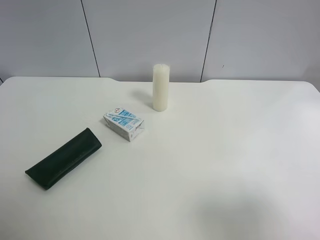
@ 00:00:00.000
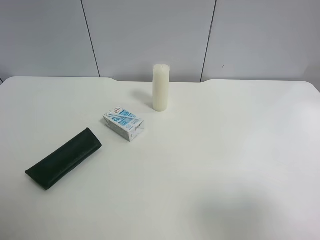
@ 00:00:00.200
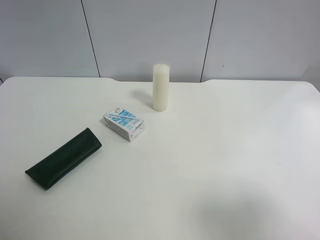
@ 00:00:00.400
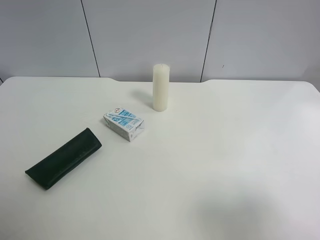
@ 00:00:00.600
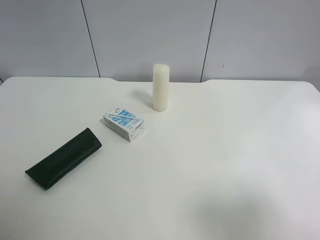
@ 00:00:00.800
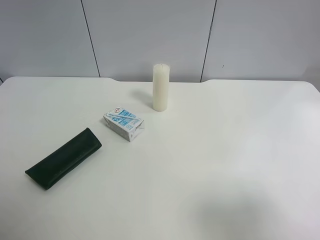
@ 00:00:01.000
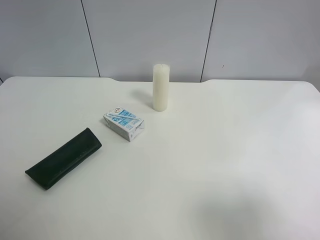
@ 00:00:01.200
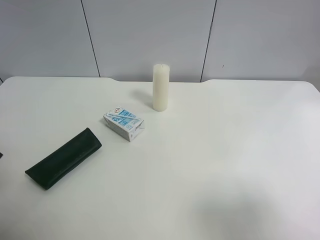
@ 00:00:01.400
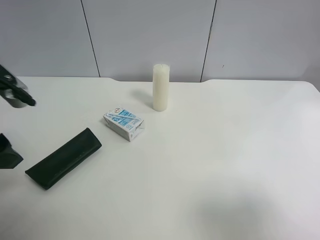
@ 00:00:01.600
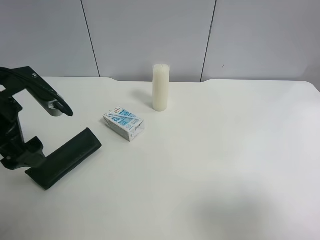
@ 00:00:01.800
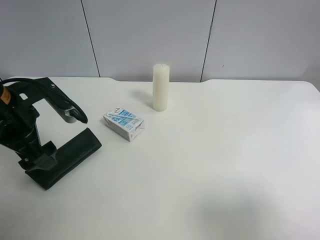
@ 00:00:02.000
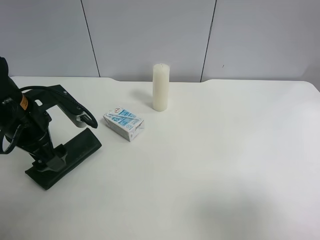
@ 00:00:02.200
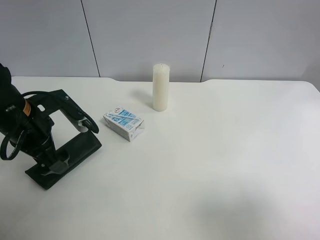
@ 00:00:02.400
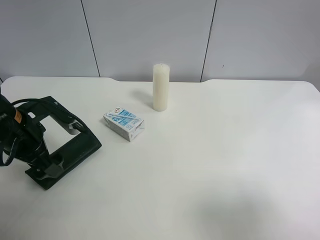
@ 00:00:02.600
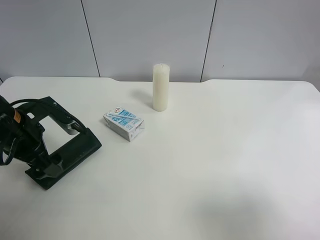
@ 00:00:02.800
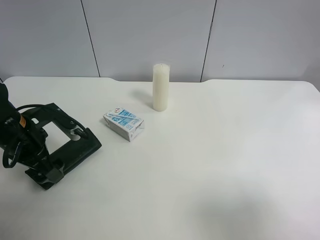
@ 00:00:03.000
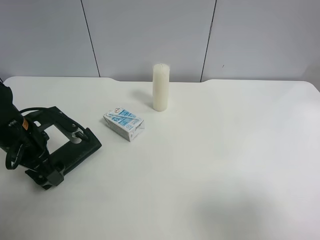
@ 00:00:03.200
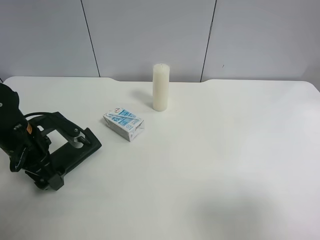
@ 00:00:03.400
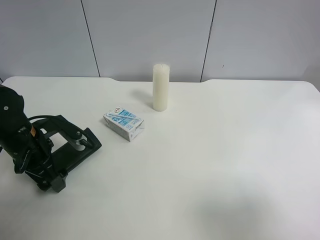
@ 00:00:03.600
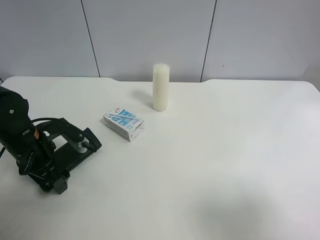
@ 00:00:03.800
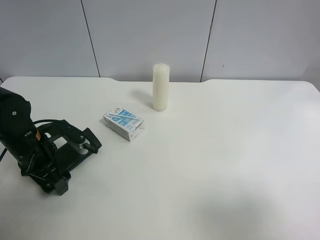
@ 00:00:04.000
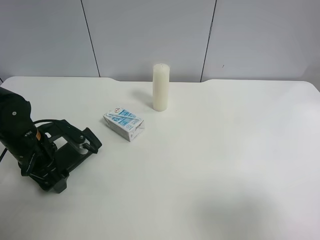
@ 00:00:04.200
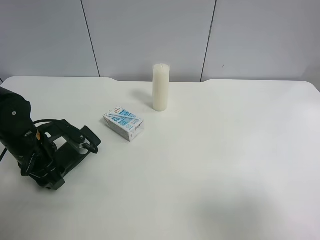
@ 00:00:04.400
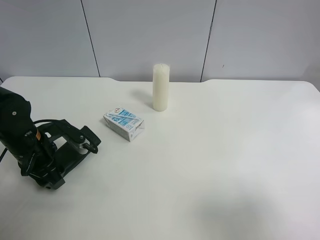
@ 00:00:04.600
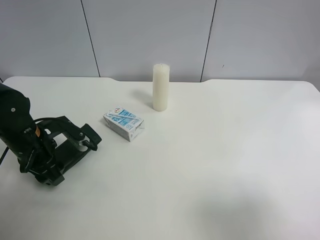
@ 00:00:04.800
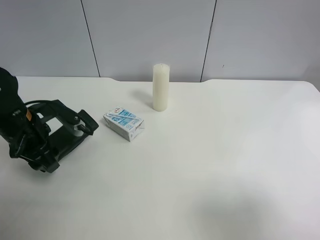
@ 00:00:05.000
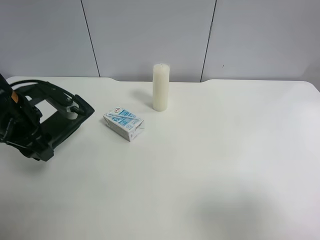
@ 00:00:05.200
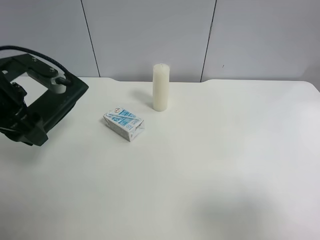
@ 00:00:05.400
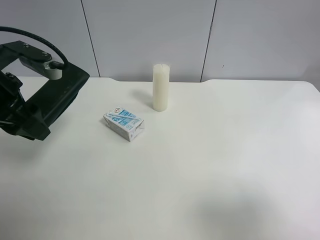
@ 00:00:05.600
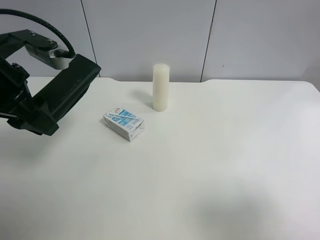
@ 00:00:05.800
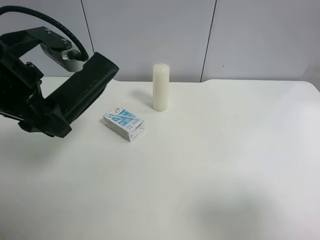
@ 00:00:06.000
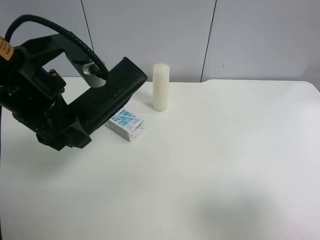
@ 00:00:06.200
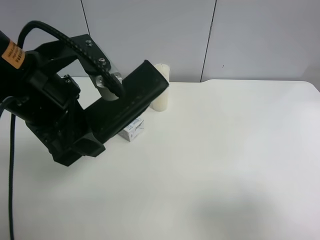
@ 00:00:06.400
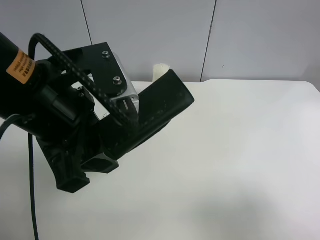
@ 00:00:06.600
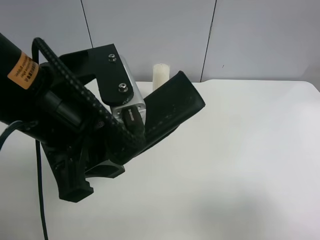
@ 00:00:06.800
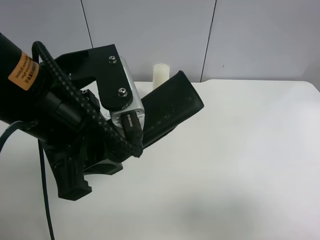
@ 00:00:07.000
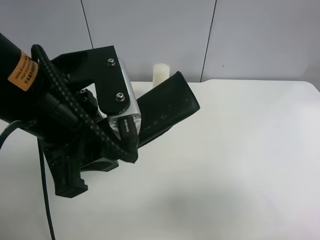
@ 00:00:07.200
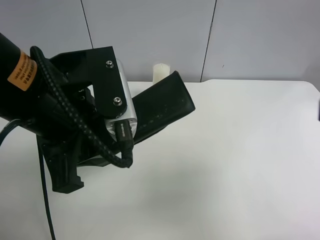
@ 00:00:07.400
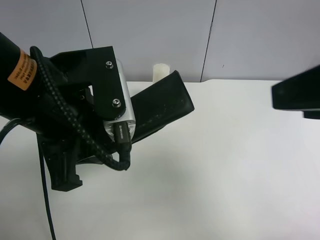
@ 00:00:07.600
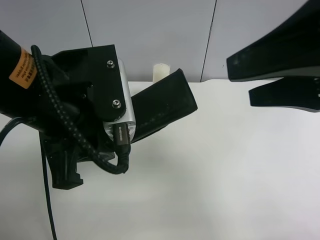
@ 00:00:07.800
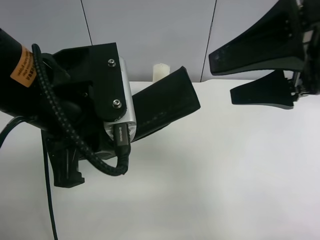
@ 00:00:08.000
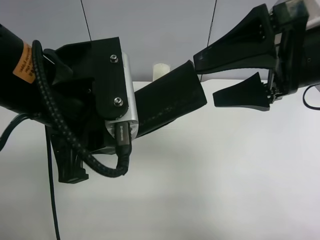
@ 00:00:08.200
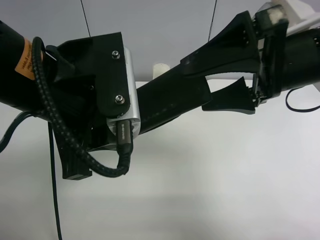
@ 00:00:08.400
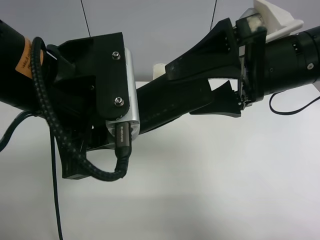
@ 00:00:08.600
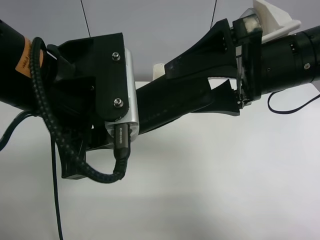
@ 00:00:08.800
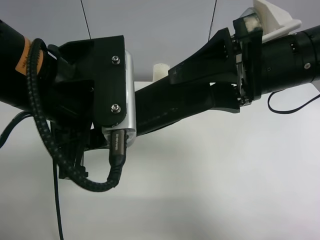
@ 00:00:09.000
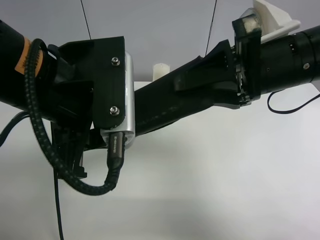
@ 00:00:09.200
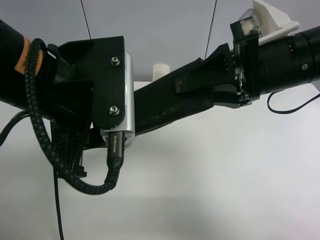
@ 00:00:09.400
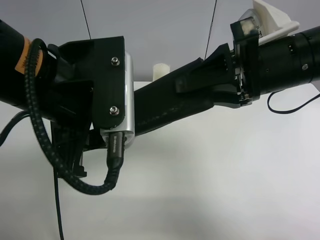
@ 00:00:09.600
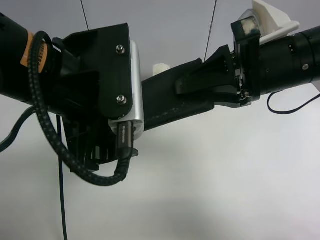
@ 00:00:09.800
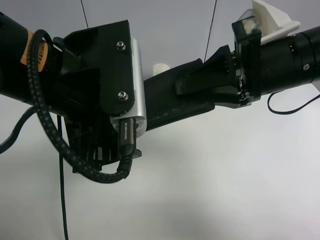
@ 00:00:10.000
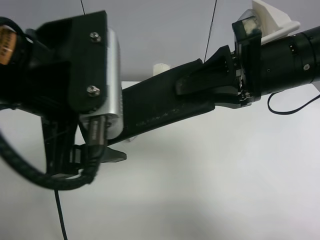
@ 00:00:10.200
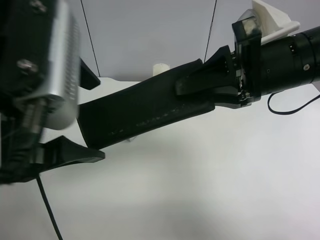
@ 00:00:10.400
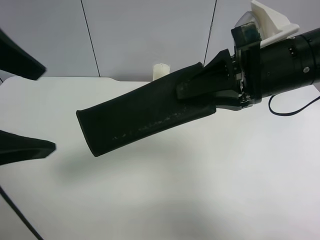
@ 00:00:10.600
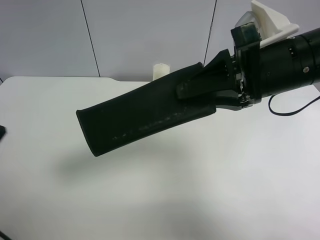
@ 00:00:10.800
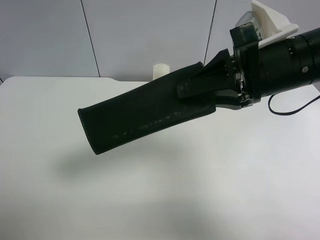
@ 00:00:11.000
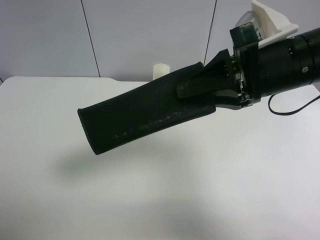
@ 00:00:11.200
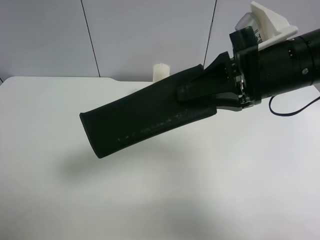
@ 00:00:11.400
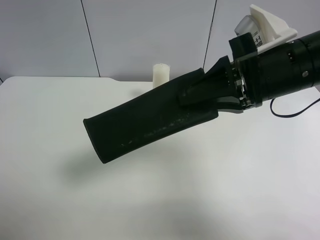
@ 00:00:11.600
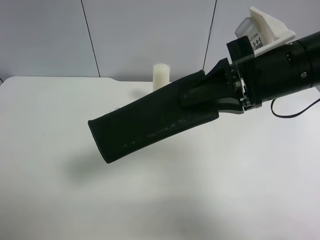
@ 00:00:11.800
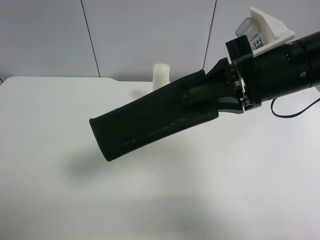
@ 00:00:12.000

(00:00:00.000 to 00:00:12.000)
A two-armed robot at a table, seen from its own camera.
Task of the whole recording: use the left gripper to pick up the item and transfer it from the left gripper to the right gripper.
00:00:00.000 - 00:00:01.600: The left gripper shifts about 15 cm forward.
00:00:01.600 - 00:00:03.000: The left gripper shifts approximately 15 cm downward and forward.
00:00:03.000 - 00:00:04.400: The left gripper closes up.
00:00:04.400 - 00:00:06.000: The left gripper moves upward, some 20 cm.
00:00:06.000 - 00:00:07.600: The left gripper is displaced to the right and backward by approximately 10 cm. Meanwhile the right gripper is displaced forward, upward and to the left by approximately 15 cm.
00:00:07.600 - 00:00:09.000: The right gripper heads forward, to the left and downward, covering some 15 cm, and closes.
00:00:09.000 - 00:00:10.400: The right gripper closes up. Meanwhile the left gripper shifts by approximately 5 cm, and opens its fingers.
00:00:10.400 - 00:00:12.000: The left gripper is displaced to the left and backward by approximately 20 cm.

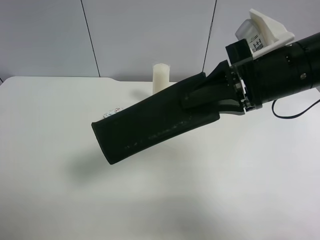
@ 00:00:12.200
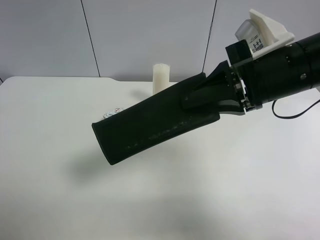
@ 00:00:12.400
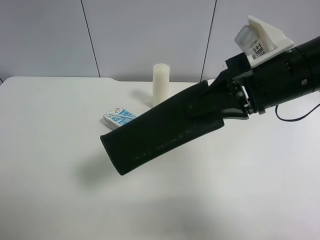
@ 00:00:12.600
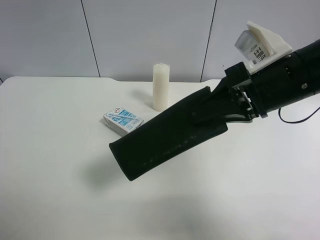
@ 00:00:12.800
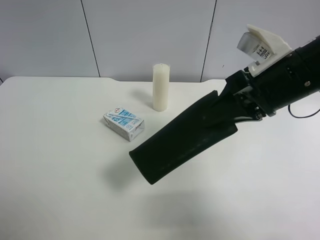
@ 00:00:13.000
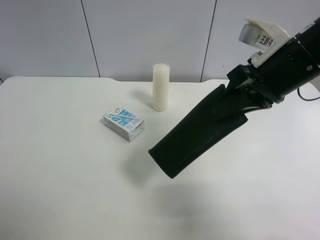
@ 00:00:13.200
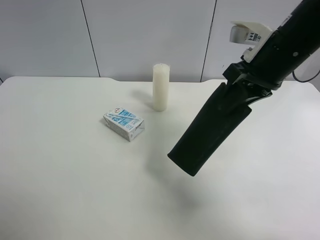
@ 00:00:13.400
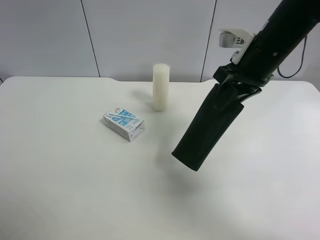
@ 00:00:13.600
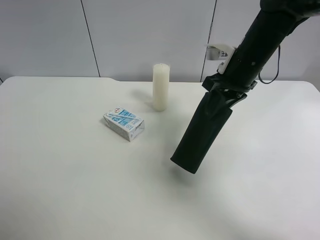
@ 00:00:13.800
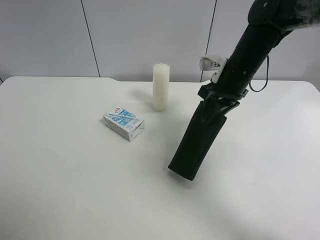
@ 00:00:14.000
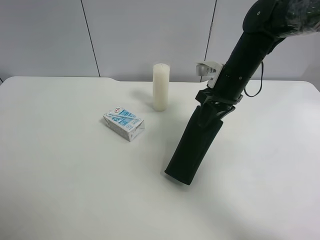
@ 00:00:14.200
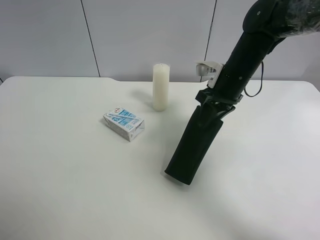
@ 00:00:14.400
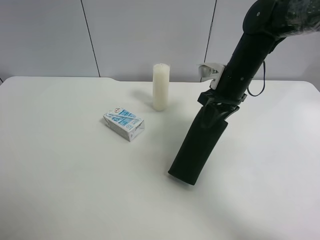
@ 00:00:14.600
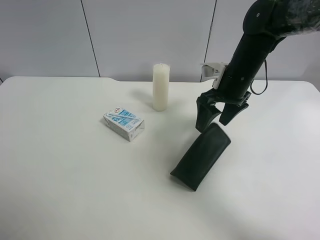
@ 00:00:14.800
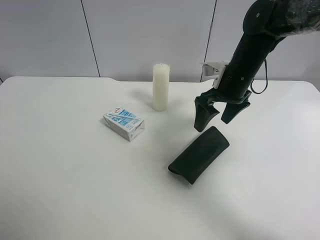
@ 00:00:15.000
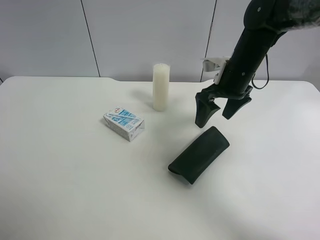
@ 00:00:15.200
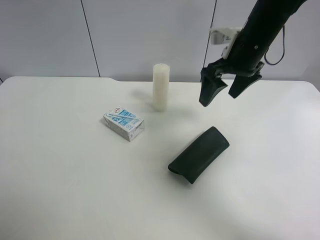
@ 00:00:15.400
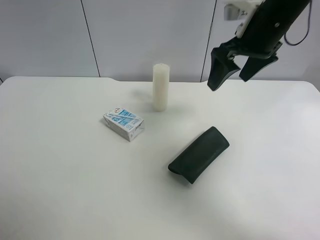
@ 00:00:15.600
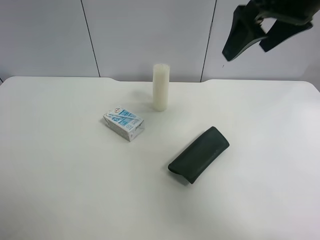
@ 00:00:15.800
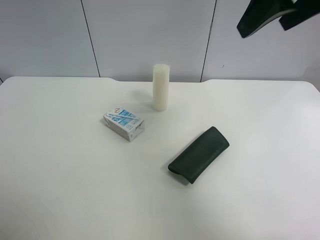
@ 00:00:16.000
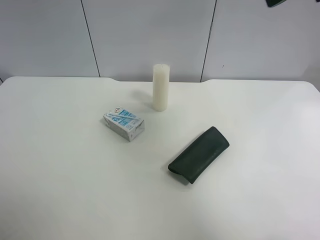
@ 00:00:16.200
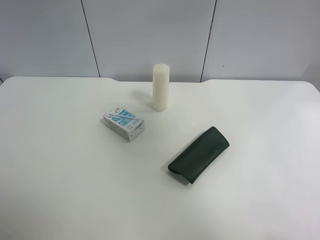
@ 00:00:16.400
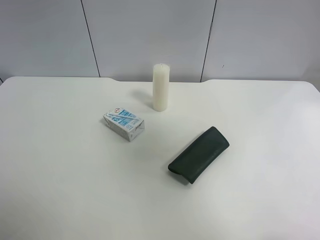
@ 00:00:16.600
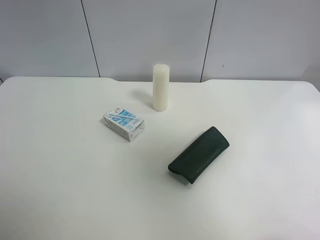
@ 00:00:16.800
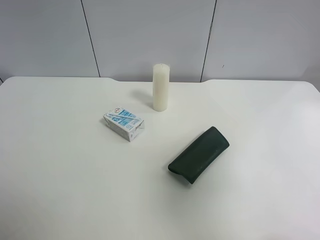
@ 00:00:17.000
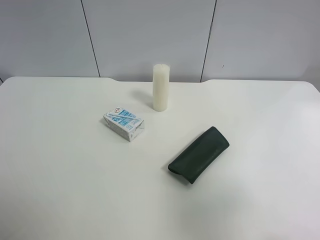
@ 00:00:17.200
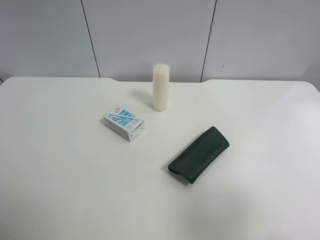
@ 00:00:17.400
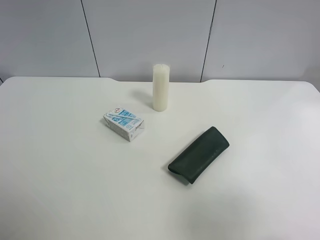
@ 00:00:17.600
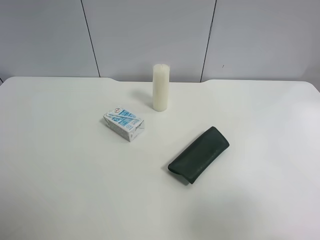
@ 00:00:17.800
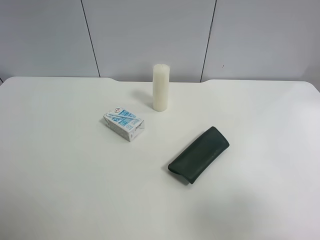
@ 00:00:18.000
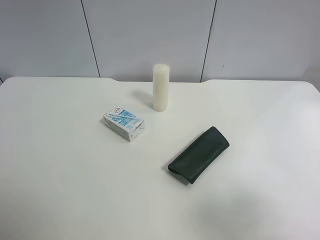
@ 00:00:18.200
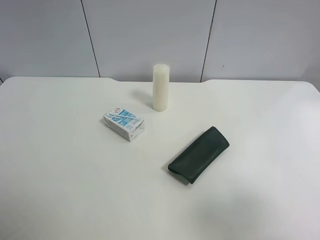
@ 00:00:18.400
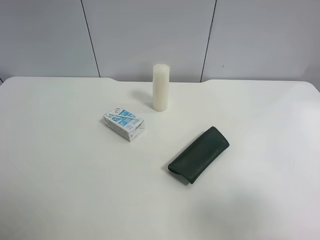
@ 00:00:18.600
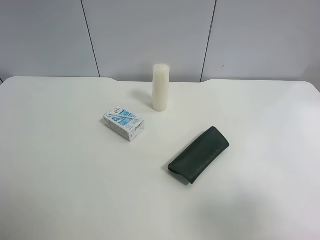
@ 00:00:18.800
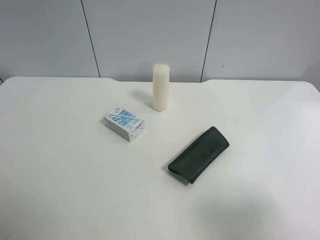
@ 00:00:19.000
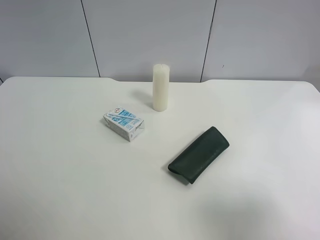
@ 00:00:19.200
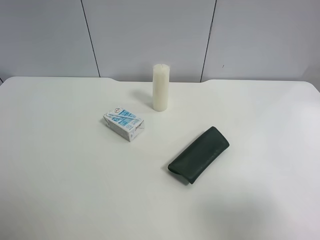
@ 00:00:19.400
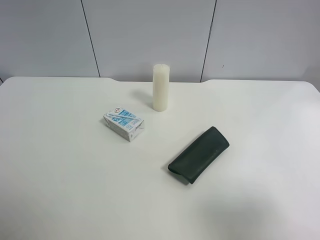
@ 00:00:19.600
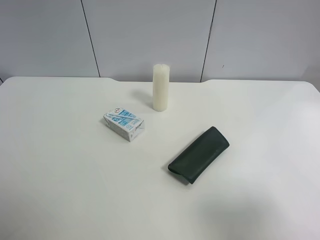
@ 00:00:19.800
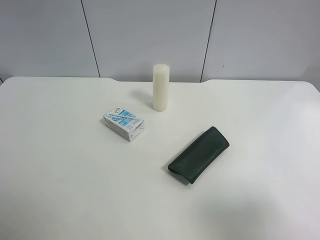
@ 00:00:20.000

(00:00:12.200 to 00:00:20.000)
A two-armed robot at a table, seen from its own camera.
Task of the whole recording: use the left gripper to pick up the item and transfer it from the left gripper to the right gripper.
00:00:12.200 - 00:00:13.800: The right gripper heads forward and downward, covering roughly 15 cm.
00:00:13.800 - 00:00:15.400: The right gripper opens.
00:00:15.400 - 00:00:16.800: The right gripper goes approximately 30 cm backward and upward.
00:00:16.800 - 00:00:18.400: The right gripper shifts about 15 cm downward and backward.
